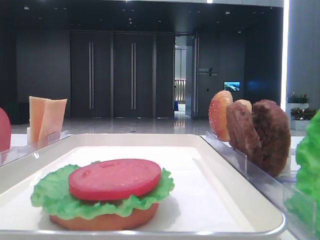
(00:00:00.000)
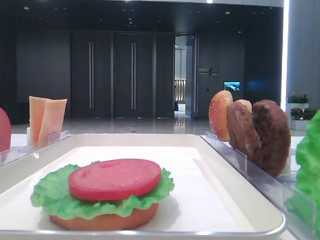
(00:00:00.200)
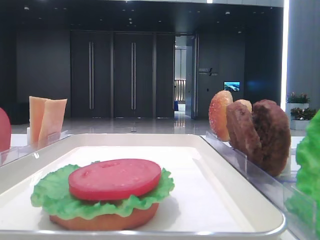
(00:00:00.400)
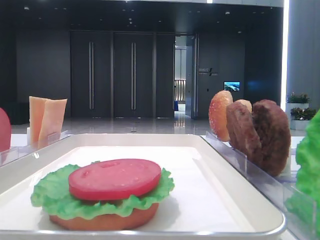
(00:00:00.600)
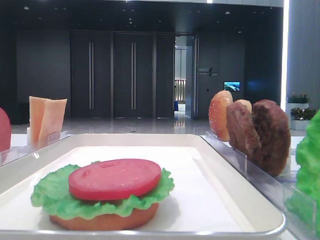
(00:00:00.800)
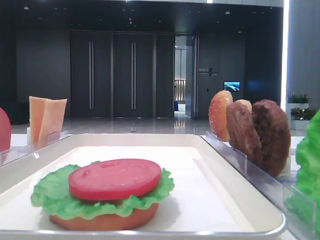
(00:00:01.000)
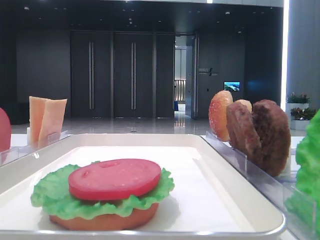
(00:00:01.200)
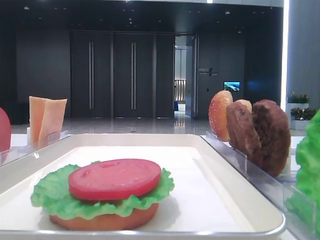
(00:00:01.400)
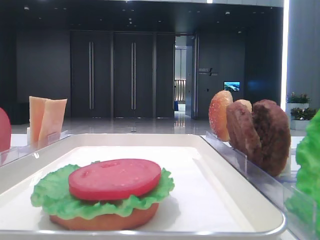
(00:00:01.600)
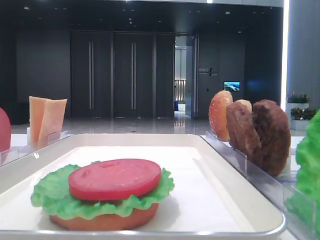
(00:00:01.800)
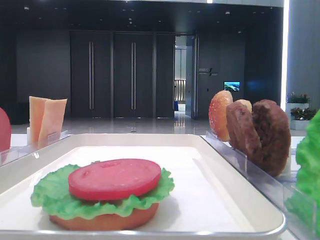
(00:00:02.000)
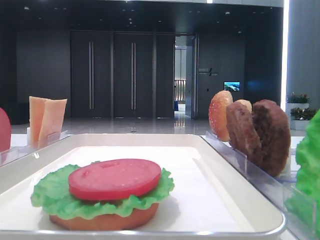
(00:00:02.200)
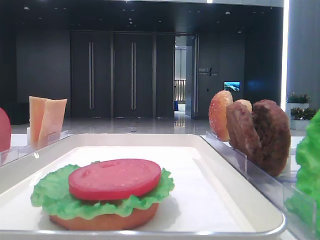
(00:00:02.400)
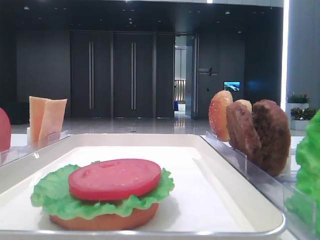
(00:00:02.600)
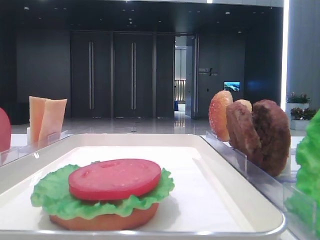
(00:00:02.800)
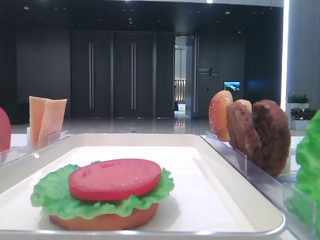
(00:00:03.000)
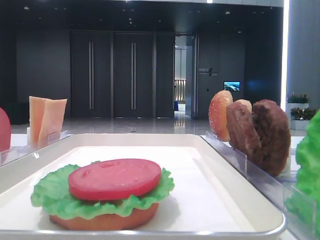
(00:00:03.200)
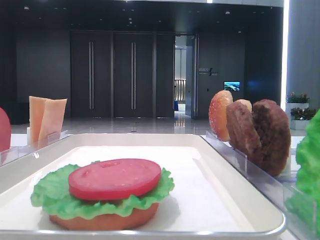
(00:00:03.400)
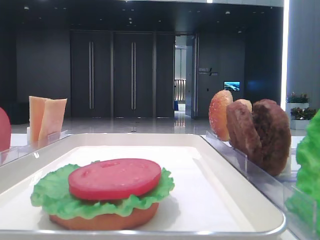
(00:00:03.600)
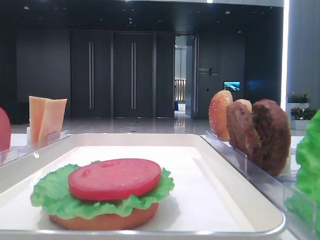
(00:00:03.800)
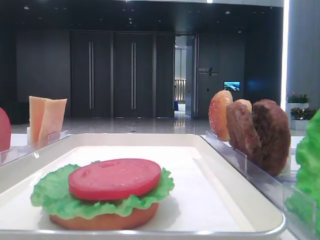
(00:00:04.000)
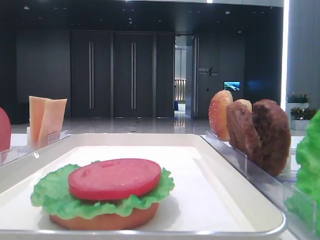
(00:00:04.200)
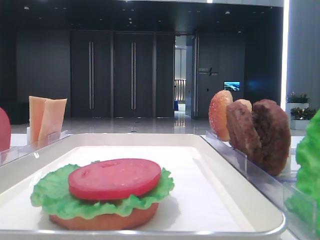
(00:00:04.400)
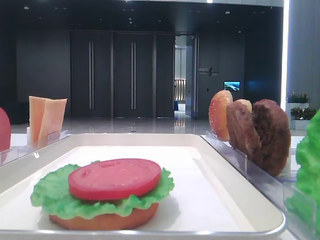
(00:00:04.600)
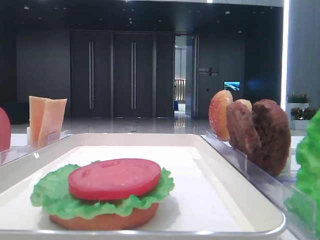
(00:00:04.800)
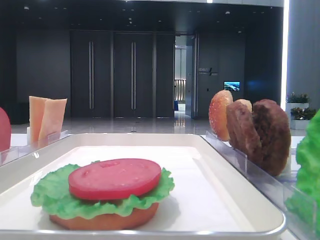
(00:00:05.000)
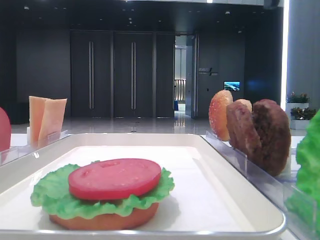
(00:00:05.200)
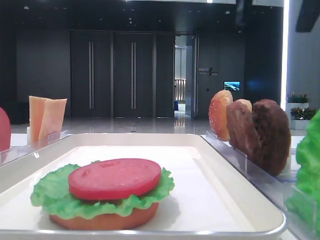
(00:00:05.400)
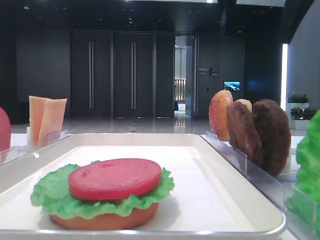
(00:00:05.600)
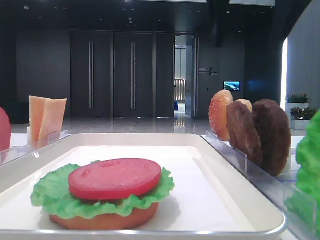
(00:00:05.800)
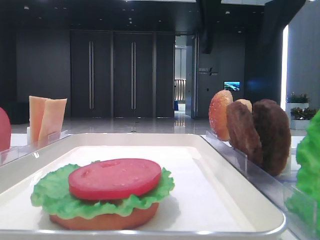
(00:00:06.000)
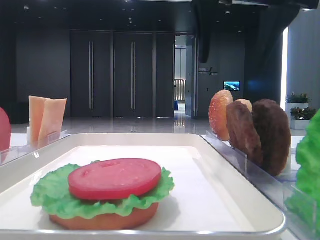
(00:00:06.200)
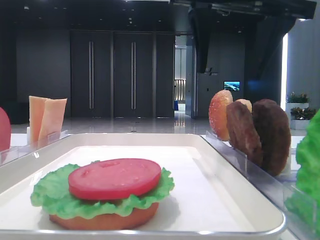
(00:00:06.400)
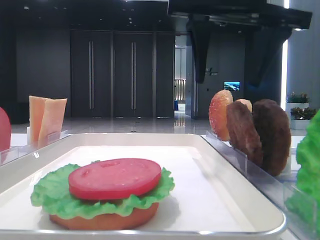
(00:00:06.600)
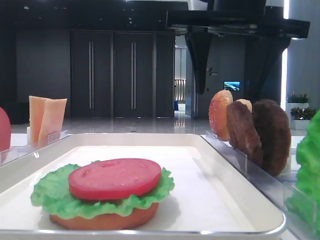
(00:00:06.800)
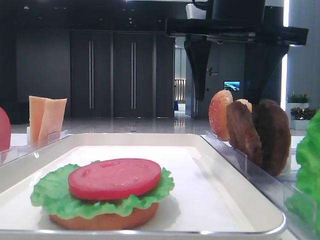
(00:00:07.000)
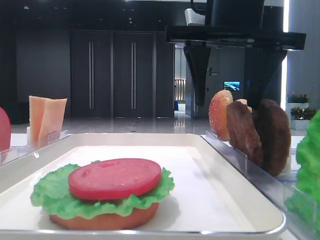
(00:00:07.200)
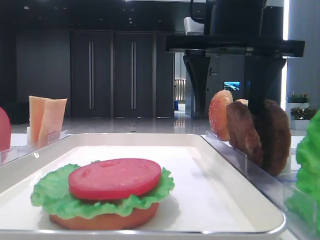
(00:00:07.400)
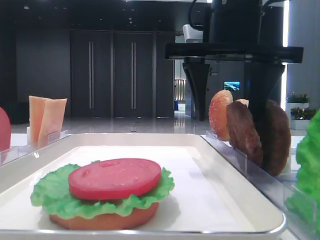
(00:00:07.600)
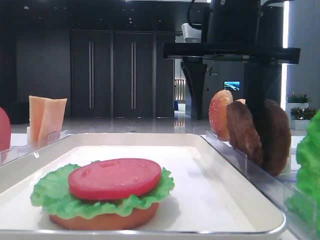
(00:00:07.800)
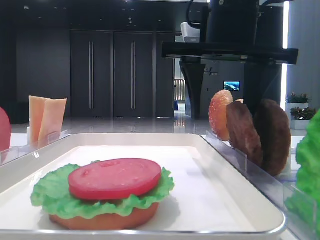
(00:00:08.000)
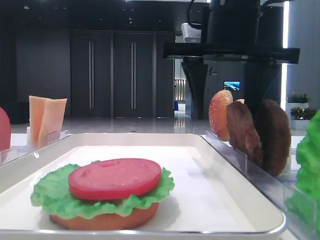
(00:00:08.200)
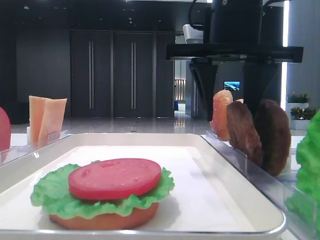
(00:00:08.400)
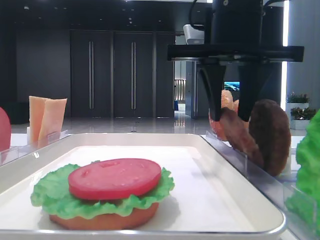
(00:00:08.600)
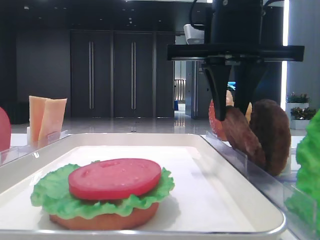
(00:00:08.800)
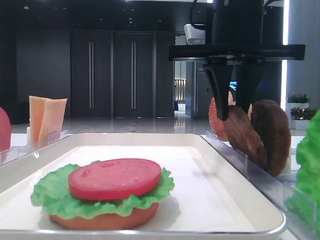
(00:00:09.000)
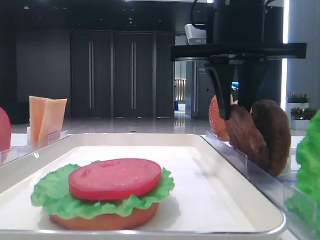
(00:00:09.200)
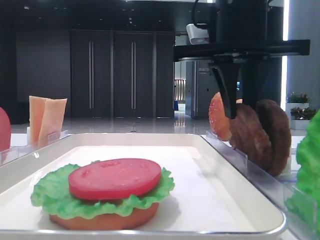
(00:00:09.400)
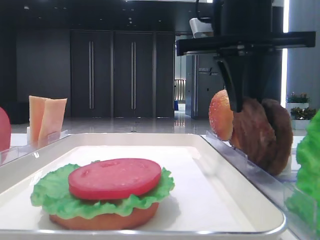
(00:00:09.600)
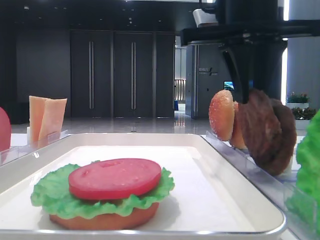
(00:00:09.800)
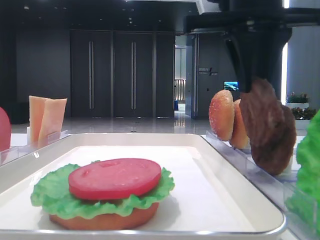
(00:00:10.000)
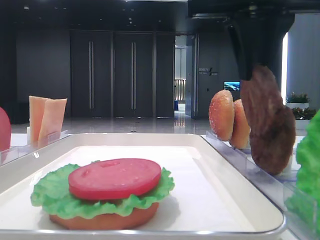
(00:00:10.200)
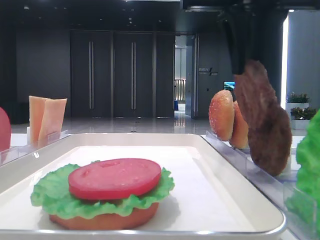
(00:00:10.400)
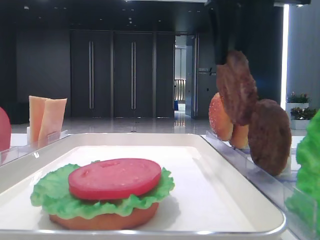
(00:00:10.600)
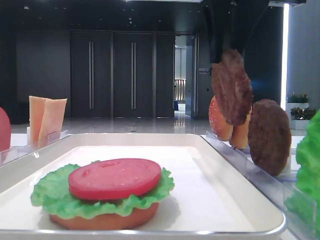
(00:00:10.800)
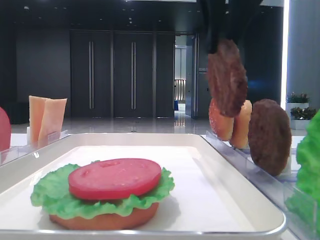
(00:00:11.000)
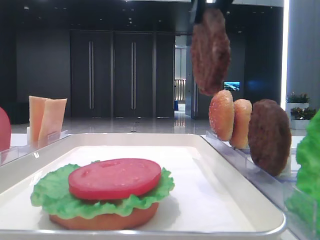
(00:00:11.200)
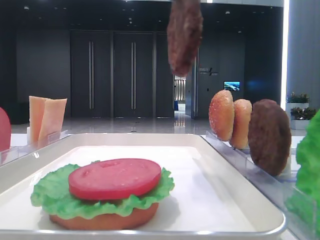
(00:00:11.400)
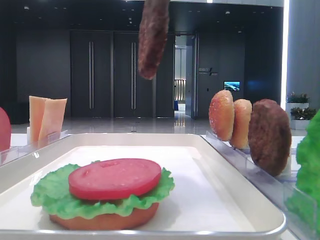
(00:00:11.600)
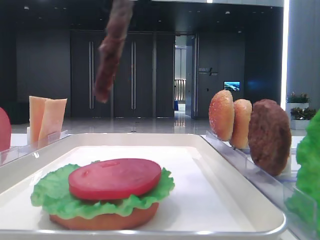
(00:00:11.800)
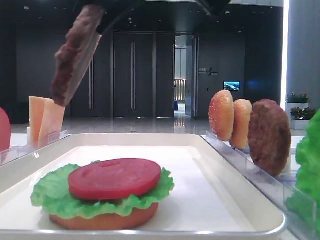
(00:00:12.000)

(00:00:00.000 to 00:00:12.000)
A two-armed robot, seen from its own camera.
Step, 00:00:00.000 - 00:00:09.400: Grab the patty with the right hand.
00:00:04.400 - 00:00:06.000: The right gripper moves to the left and forward, roughly 20 cm.
00:00:06.000 - 00:00:07.600: The right gripper shifts about 5 cm downward.
00:00:07.600 - 00:00:09.000: The right gripper closes.
00:00:09.000 - 00:00:10.400: The right gripper heads upward, covering approximately 5 cm.
00:00:10.400 - 00:00:12.000: The right gripper is displaced backward and to the left by some 10 cm.

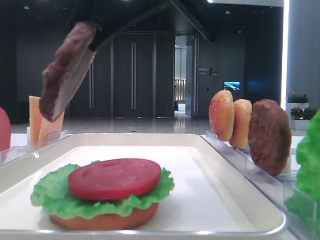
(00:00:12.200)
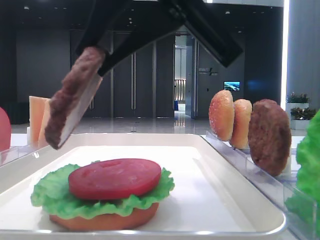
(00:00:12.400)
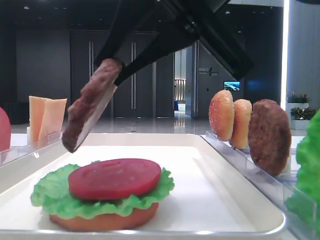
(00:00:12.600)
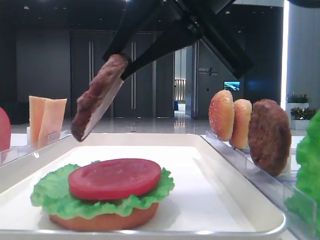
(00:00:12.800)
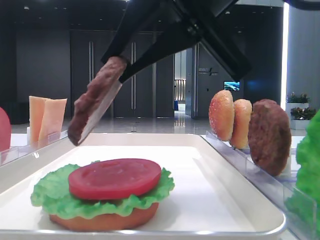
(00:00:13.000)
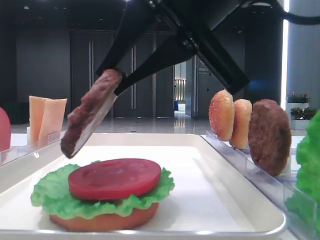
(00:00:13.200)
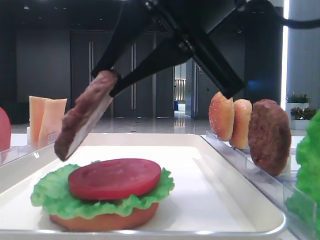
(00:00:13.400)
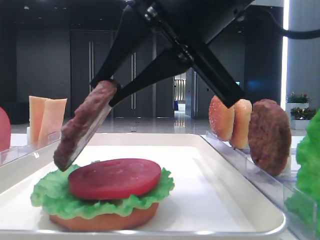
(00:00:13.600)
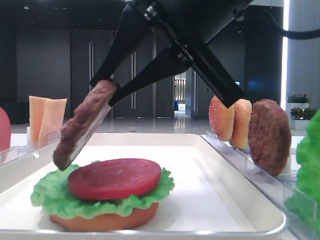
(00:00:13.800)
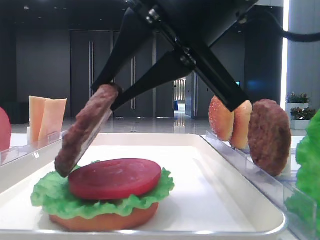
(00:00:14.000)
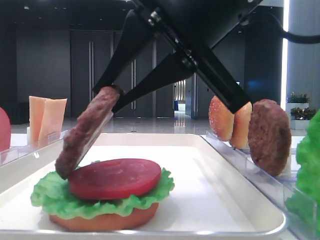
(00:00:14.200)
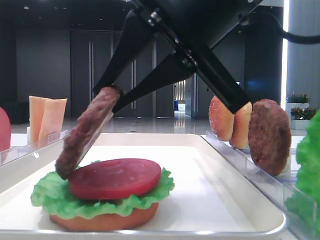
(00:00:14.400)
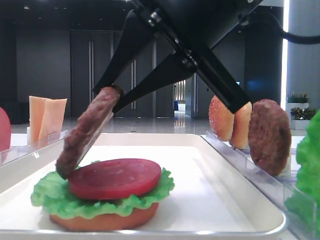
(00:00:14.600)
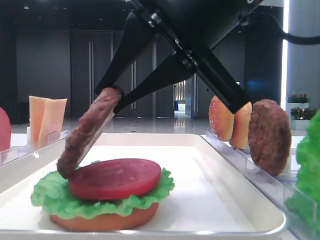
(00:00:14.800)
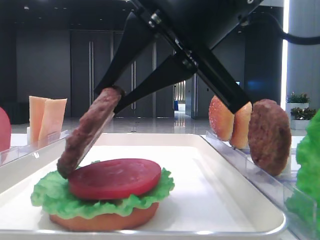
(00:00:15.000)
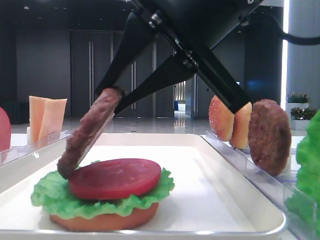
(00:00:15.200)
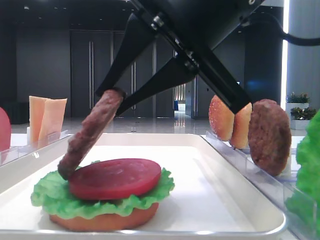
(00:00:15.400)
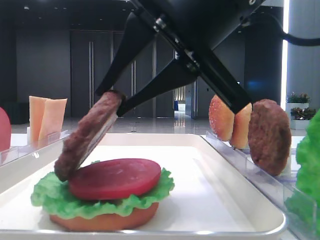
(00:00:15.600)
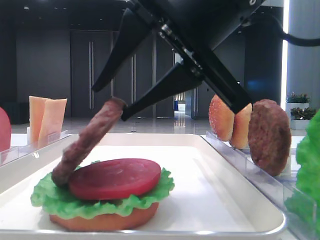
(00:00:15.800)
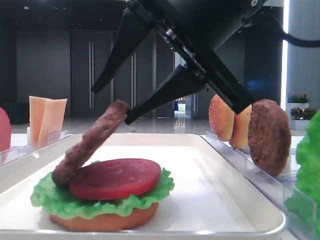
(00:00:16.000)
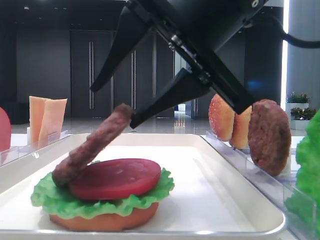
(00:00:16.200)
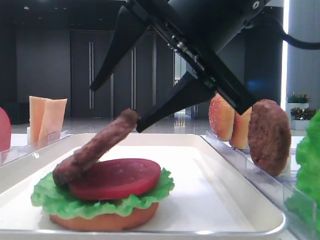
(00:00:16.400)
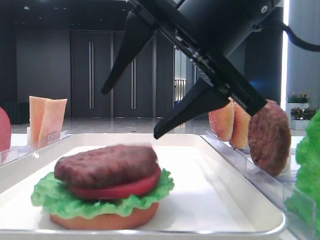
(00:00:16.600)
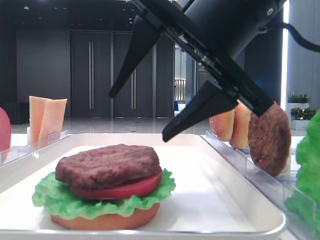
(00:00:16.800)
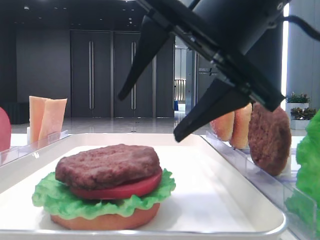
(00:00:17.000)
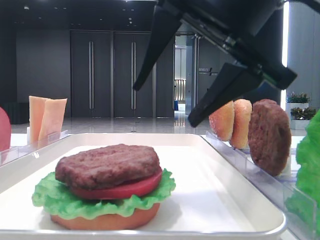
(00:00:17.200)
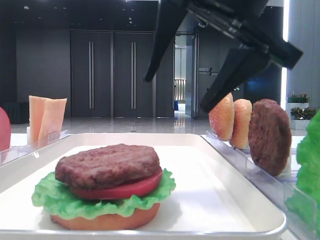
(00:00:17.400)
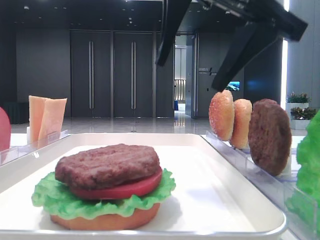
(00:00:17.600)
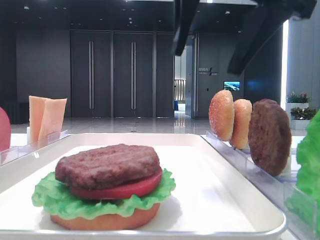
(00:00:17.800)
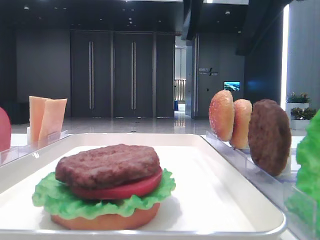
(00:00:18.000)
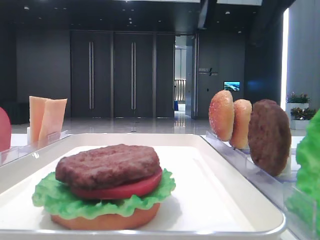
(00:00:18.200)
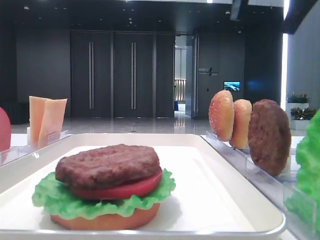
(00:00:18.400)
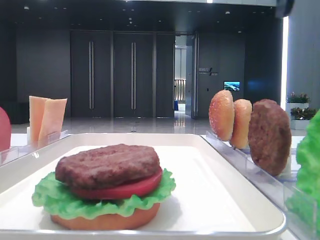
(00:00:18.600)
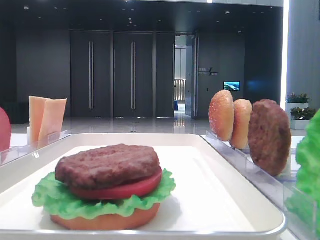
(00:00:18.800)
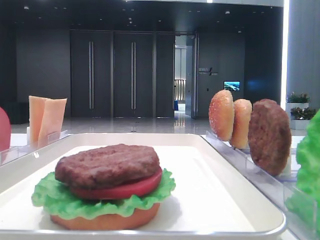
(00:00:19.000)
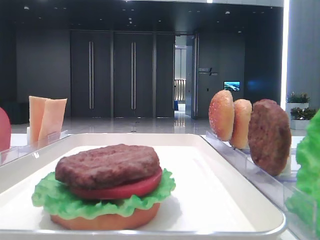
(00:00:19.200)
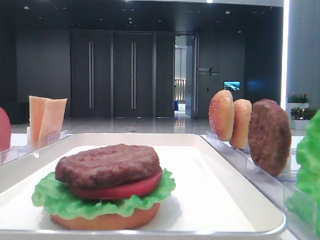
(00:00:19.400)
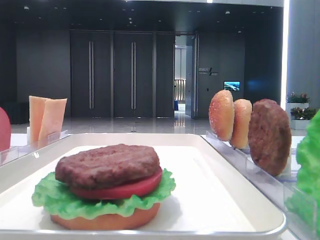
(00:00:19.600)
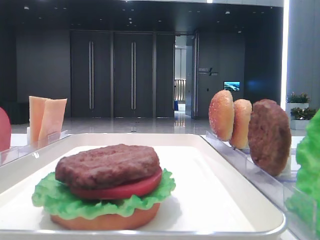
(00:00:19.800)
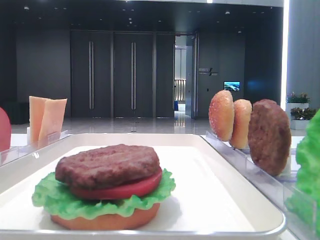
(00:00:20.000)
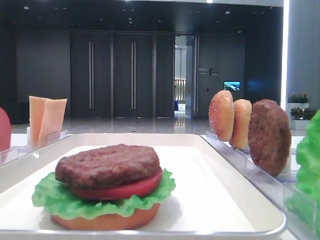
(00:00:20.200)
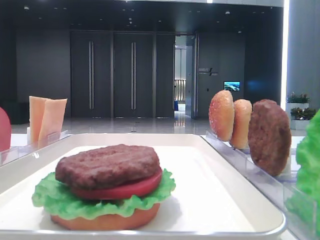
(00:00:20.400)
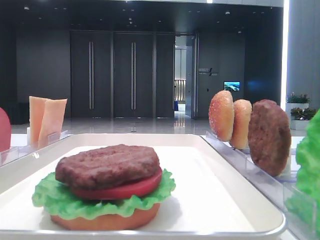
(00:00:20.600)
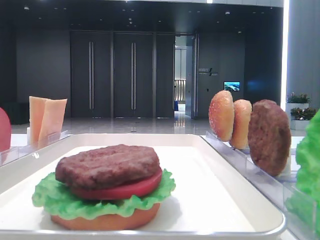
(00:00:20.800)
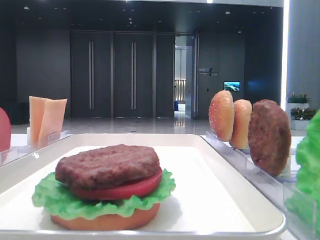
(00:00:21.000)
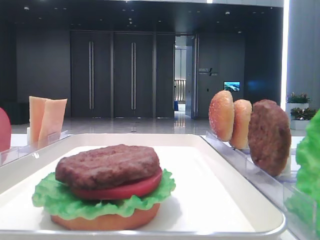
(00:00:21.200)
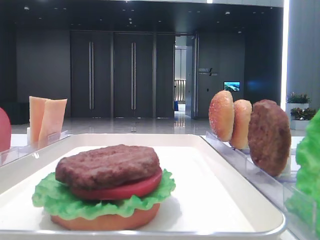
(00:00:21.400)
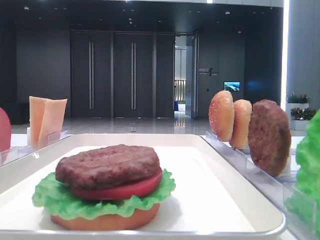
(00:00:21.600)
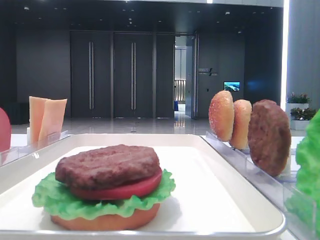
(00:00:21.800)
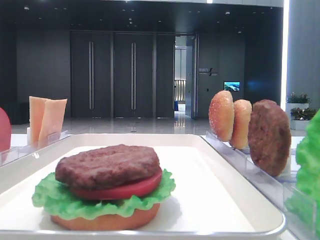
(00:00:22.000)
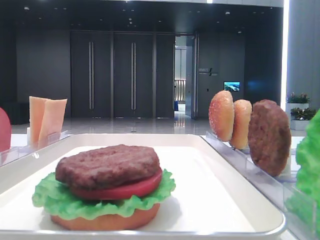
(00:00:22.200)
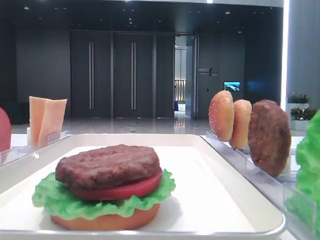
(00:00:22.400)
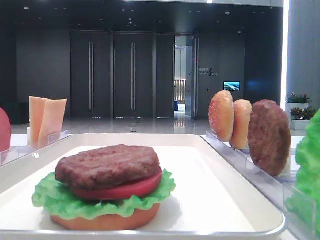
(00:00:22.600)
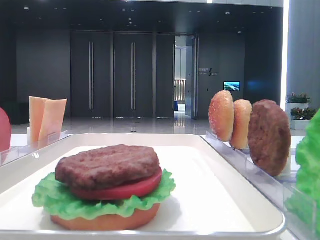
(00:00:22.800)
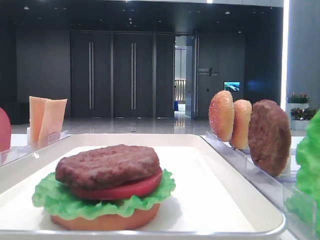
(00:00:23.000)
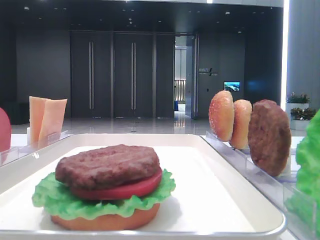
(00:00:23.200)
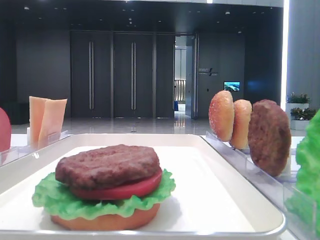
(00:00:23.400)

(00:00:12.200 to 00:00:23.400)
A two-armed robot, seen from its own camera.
Step, 00:00:12.200 - 00:00:16.400: Place the patty on the tomato slice with the right hand.
00:00:12.200 - 00:00:13.800: The right gripper shifts some 5 cm downward.
00:00:13.800 - 00:00:15.400: Neither gripper changes place.
00:00:15.400 - 00:00:17.000: The right gripper opens its fingers.
00:00:17.000 - 00:00:18.600: The right gripper moves upward and to the right, about 20 cm.
00:00:21.800 - 00:00:23.400: Both grippers stay put.
